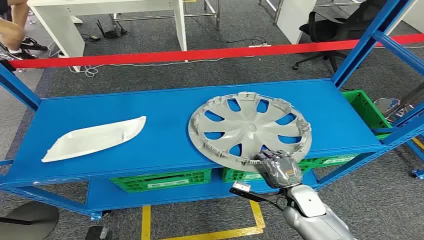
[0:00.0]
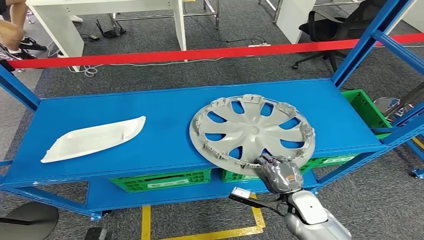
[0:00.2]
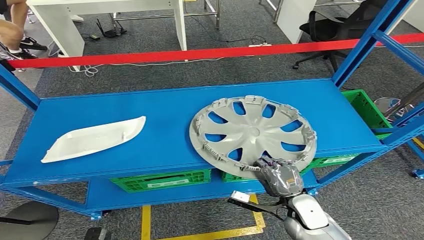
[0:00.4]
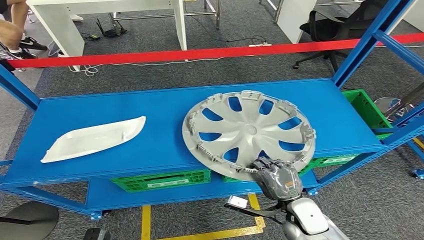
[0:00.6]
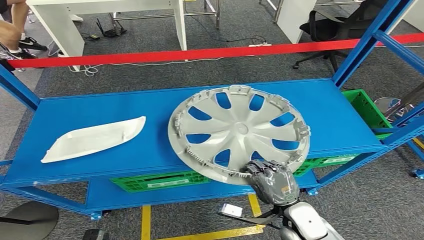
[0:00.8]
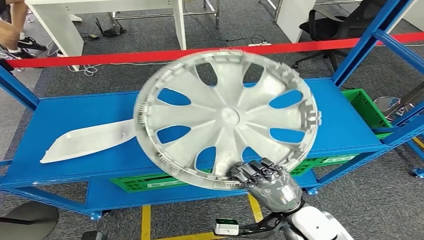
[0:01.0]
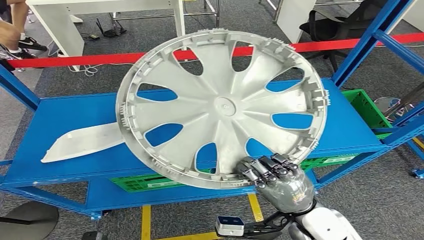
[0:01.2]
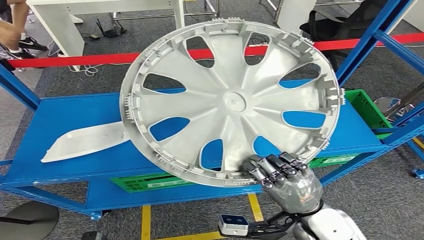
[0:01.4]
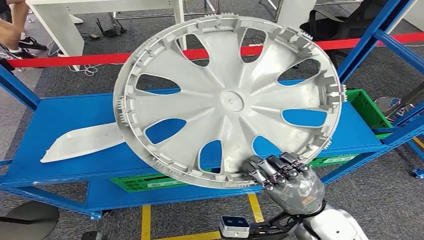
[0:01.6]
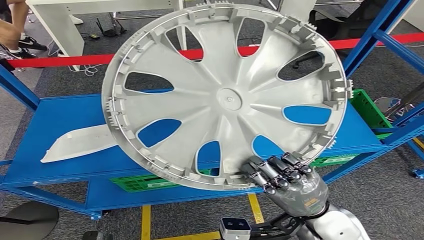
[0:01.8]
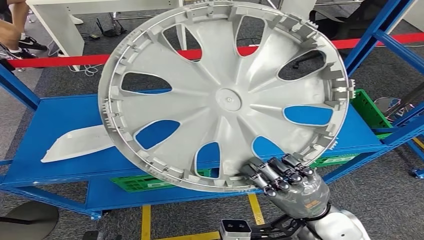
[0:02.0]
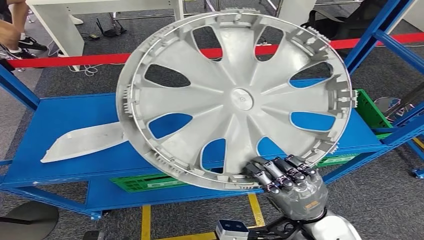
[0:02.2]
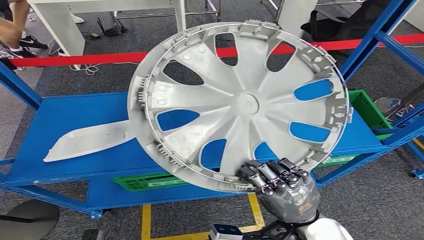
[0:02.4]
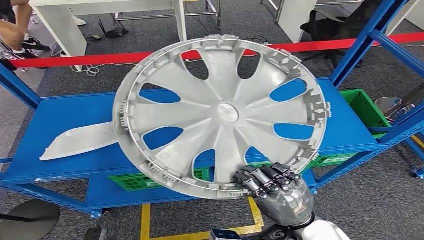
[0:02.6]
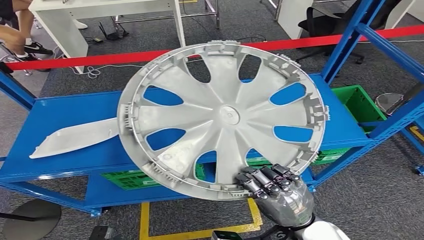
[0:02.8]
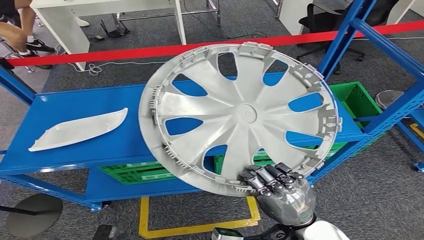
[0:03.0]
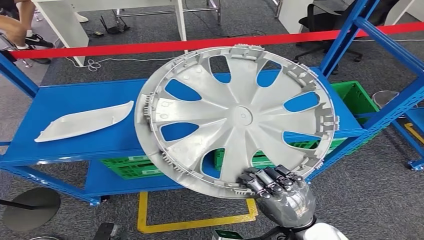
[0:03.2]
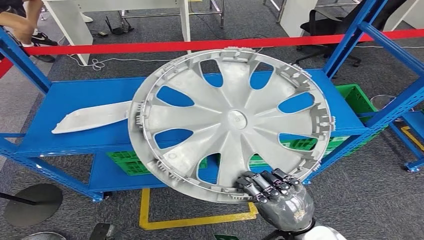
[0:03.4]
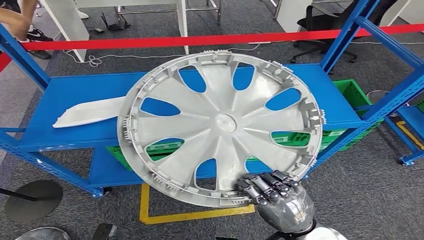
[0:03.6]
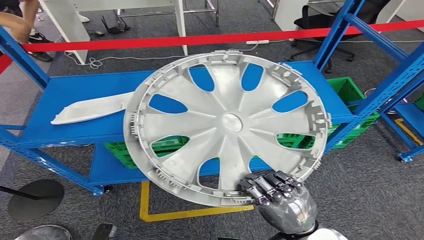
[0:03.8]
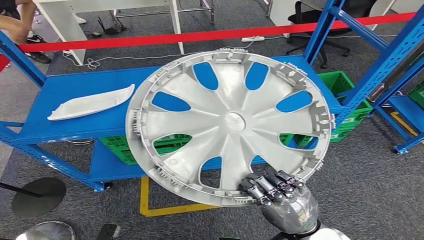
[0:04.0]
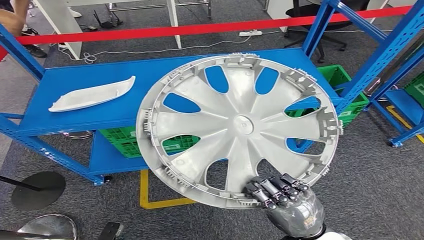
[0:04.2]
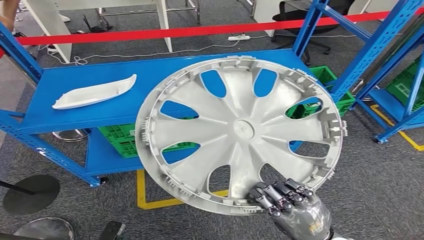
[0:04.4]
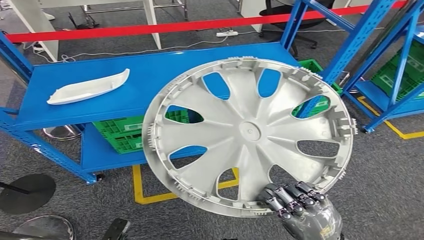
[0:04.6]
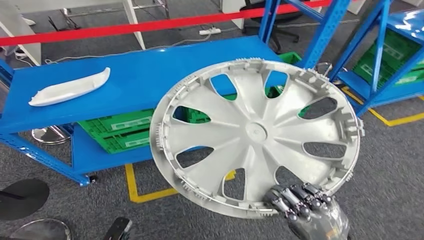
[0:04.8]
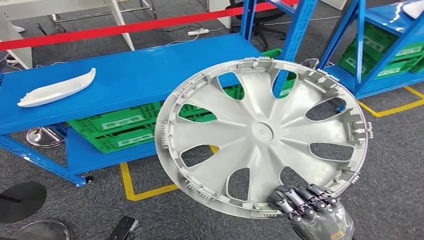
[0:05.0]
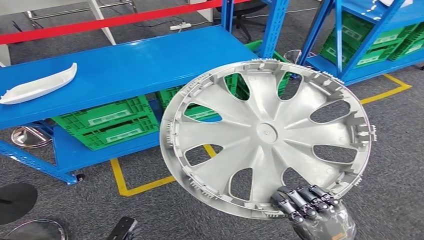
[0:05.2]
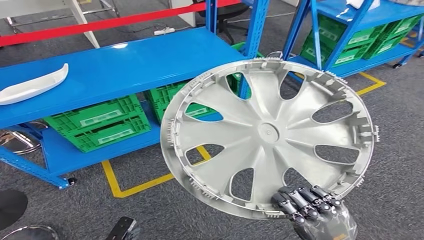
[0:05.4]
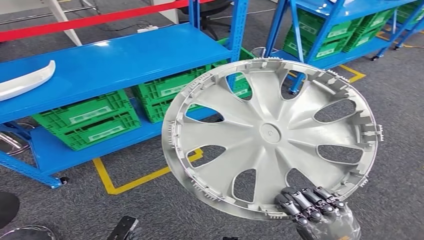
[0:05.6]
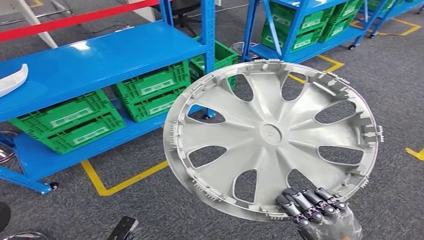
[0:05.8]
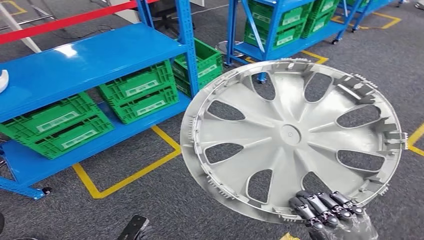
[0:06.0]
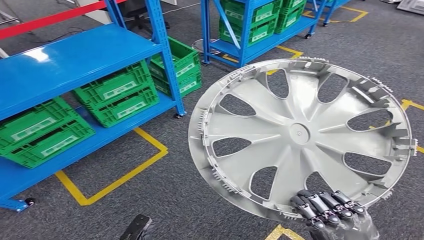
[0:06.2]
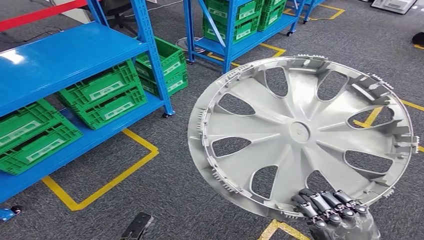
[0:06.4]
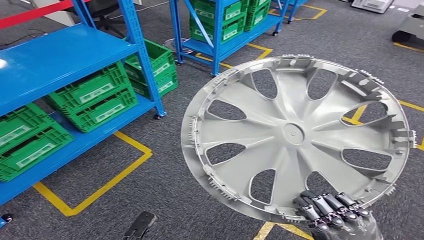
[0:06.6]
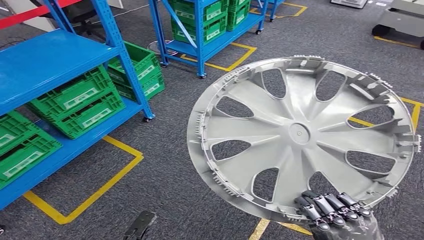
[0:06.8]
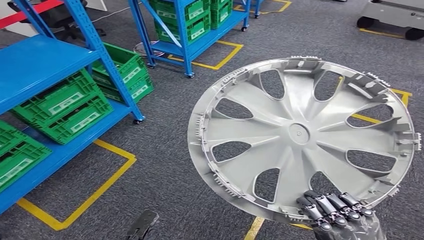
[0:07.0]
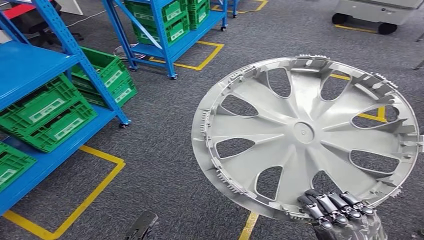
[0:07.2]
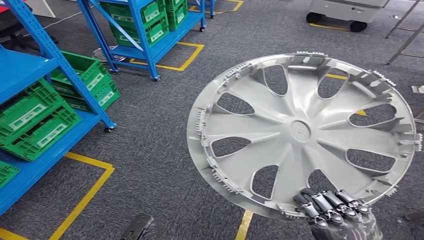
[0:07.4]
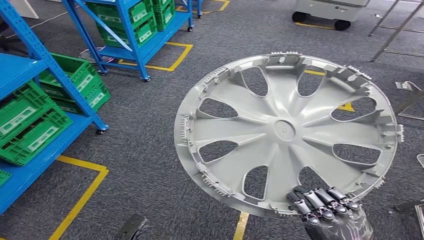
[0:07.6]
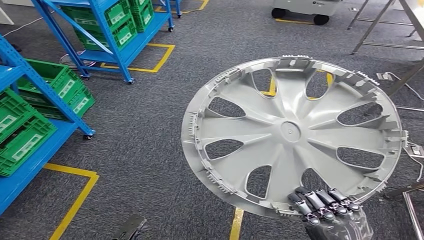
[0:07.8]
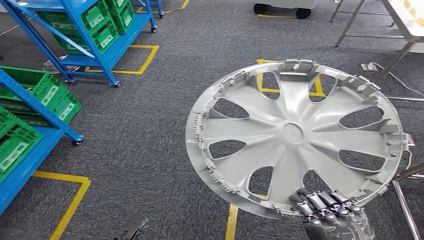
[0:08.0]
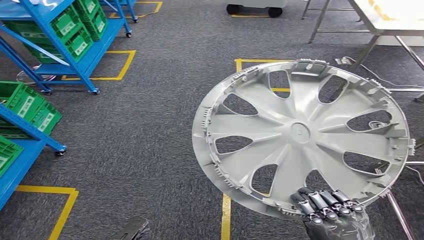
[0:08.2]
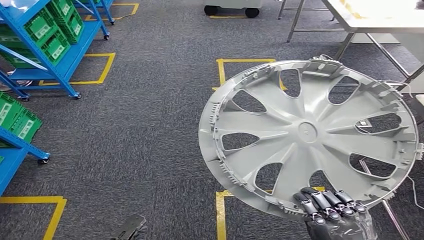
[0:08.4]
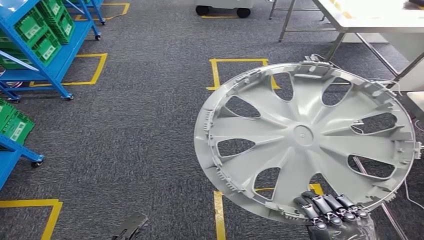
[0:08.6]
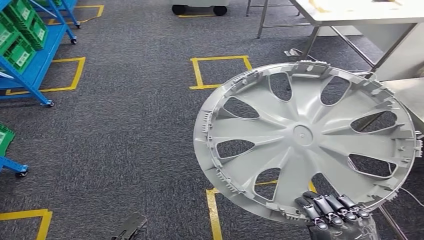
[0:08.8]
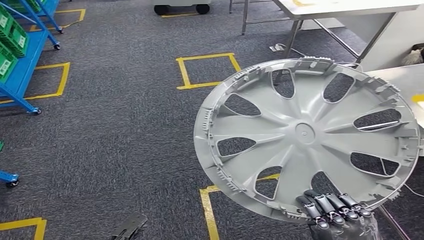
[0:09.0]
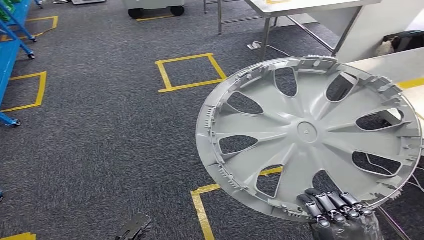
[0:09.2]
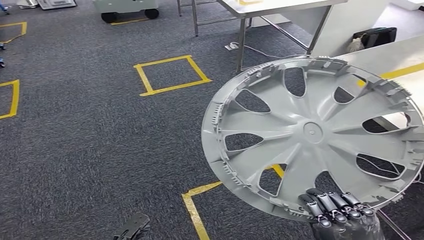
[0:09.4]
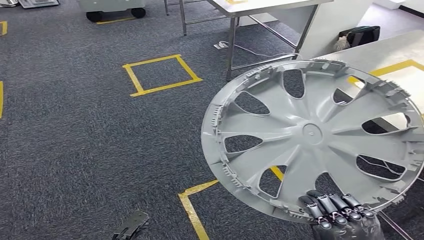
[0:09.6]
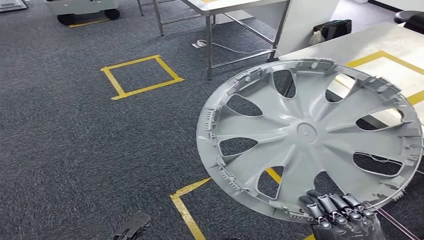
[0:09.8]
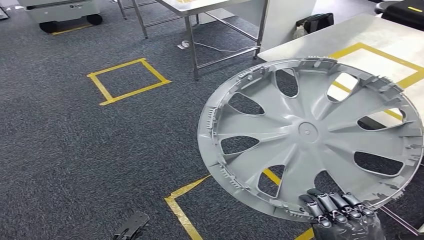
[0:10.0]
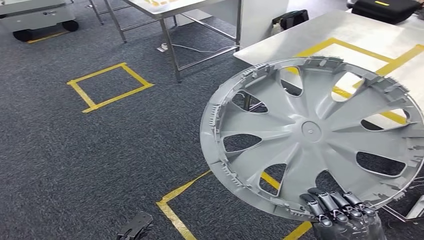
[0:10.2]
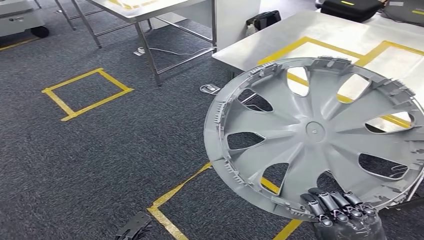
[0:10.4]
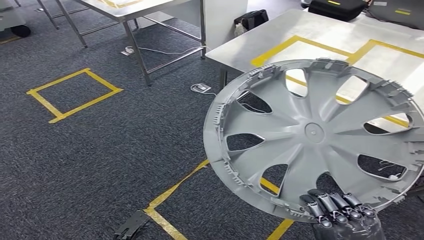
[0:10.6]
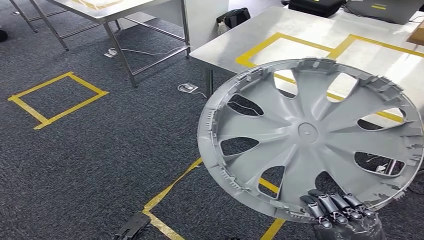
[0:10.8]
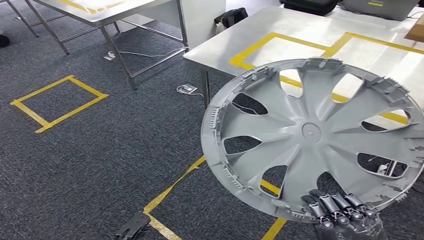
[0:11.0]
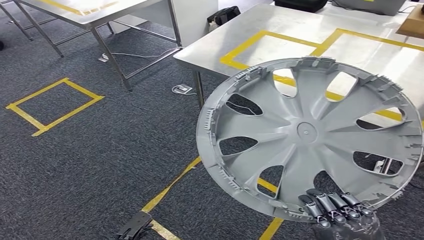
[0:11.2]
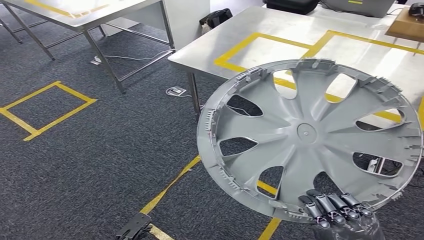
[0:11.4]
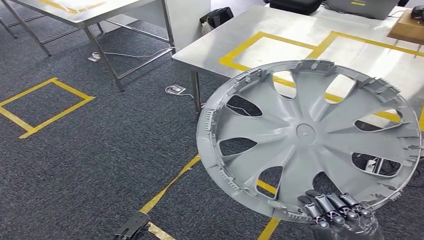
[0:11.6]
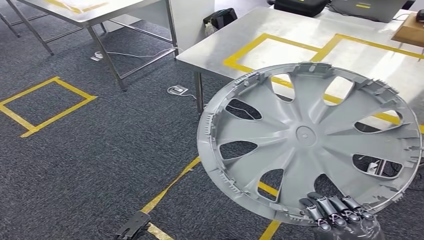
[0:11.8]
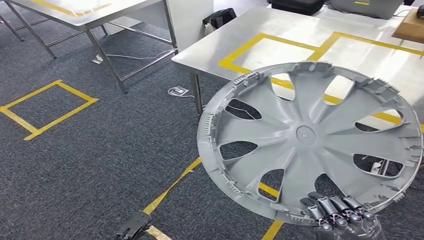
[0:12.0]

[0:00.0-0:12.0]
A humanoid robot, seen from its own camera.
Step, 0:00.0 to 0:05.0: Pick up the small component from the shelf.

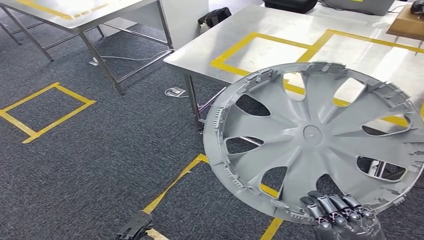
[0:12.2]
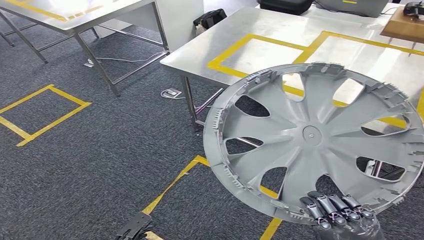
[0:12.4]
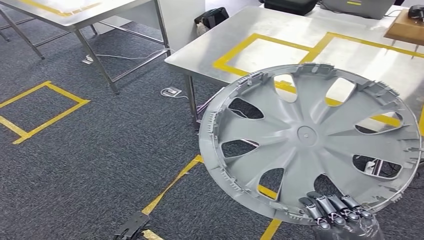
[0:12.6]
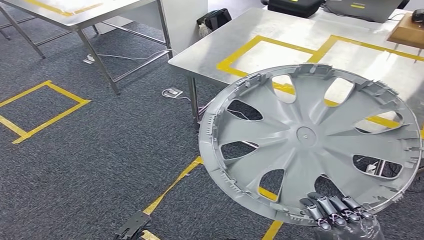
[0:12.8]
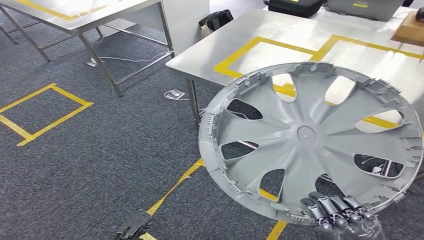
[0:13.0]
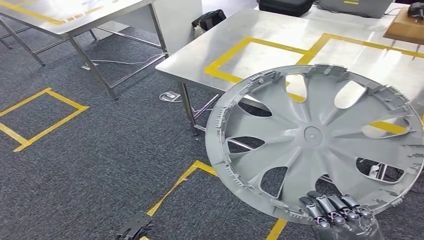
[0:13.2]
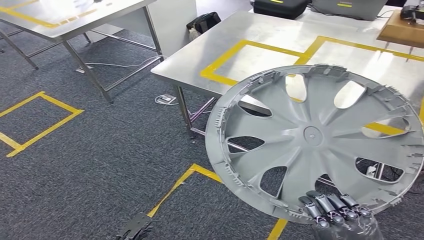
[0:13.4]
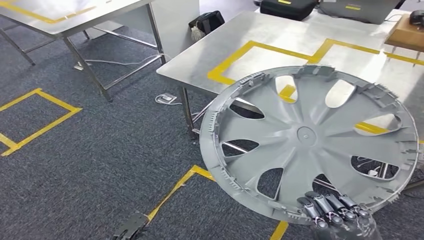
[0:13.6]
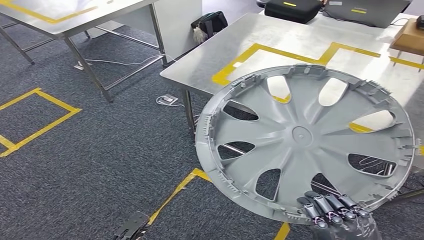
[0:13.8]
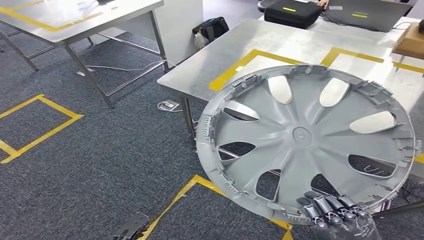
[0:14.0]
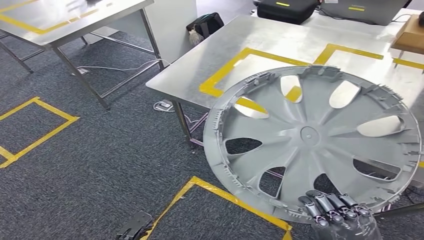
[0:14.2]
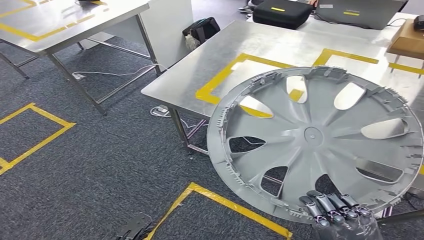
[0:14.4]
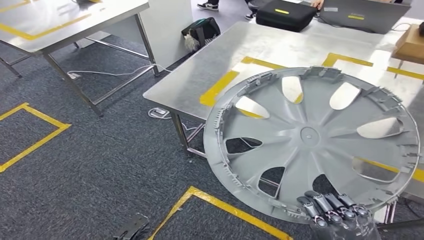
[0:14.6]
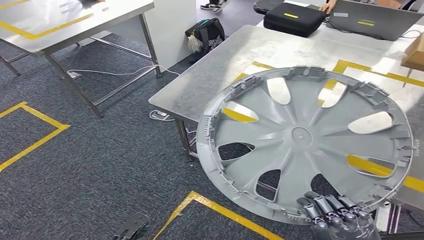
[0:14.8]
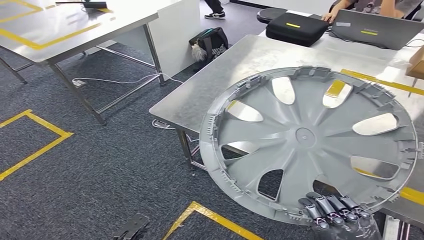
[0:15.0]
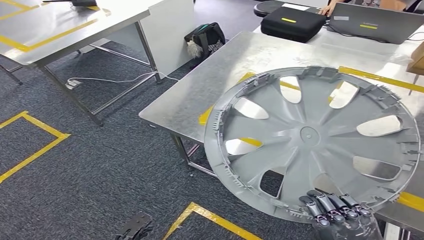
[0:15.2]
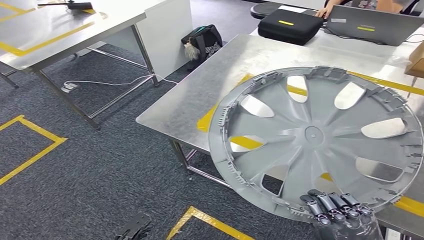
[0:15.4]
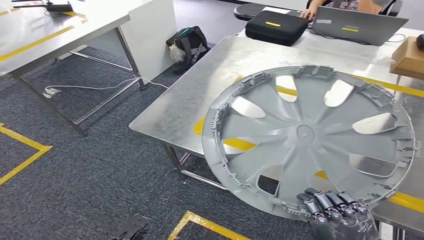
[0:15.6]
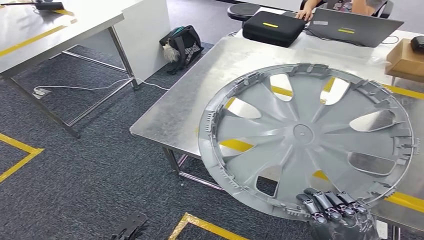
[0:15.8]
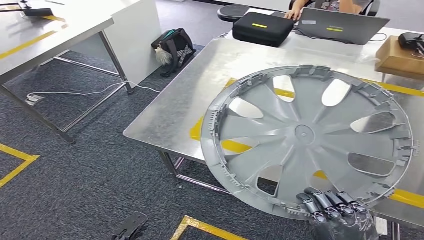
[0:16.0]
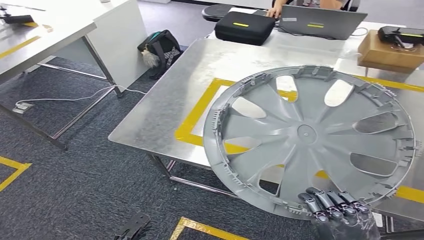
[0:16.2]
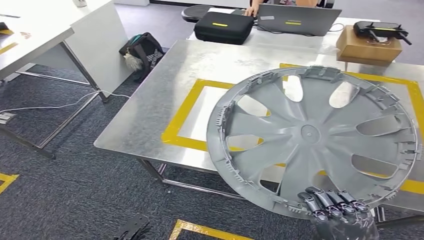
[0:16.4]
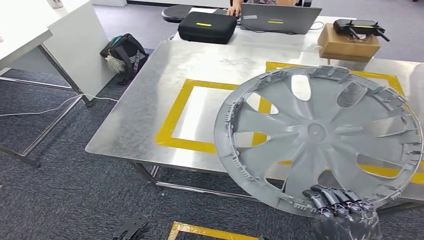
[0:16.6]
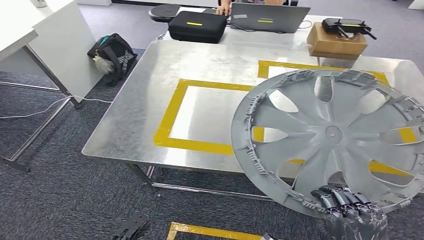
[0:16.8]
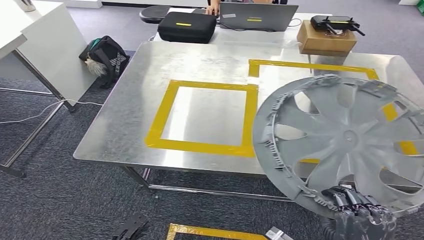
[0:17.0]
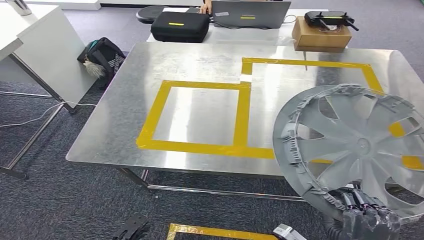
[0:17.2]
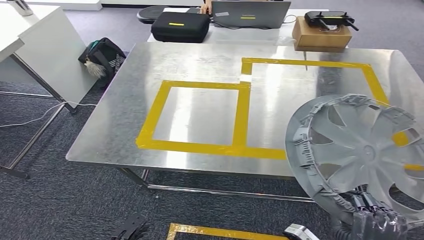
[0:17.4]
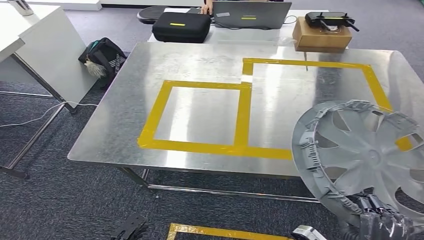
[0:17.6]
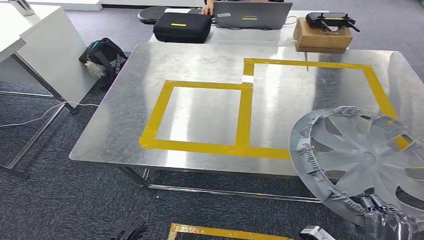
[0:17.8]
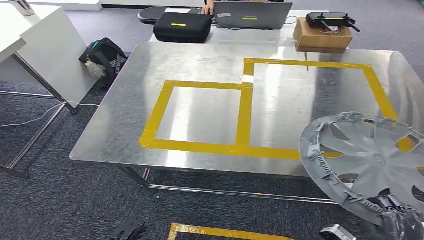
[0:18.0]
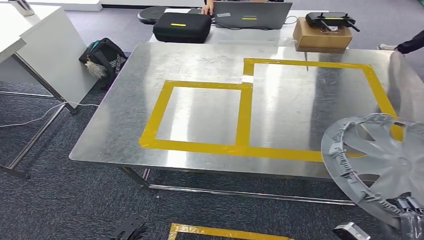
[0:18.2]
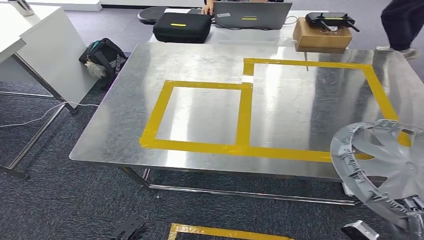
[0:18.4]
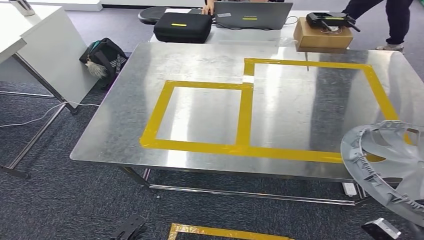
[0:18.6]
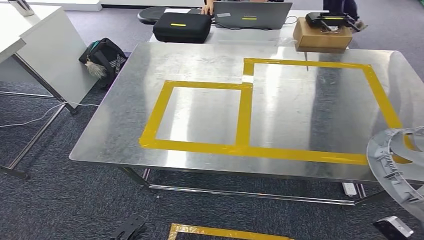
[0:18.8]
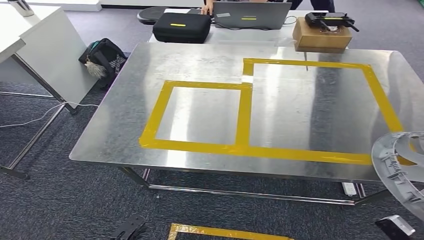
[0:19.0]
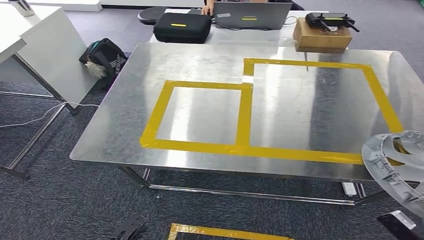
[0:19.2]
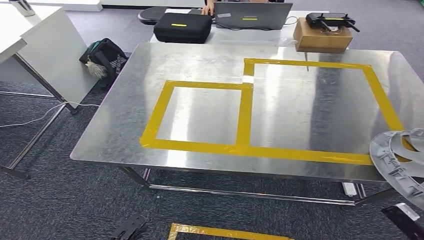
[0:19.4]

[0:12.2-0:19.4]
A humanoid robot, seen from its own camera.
Step, 0:12.2 to 0:16.2: Bring the small component to the front of the workbench.
0:18.0 to 0:19.4: The right hand heads to the right, covering about 10 cm.
